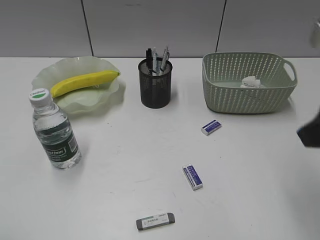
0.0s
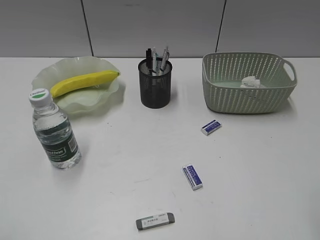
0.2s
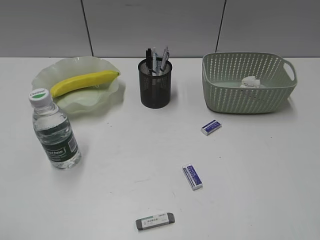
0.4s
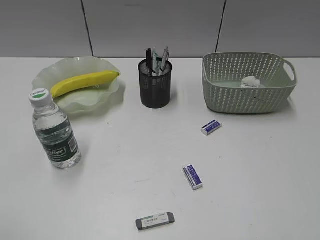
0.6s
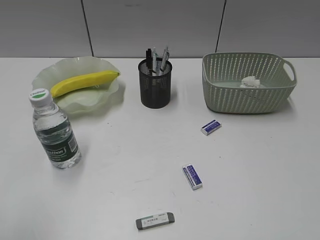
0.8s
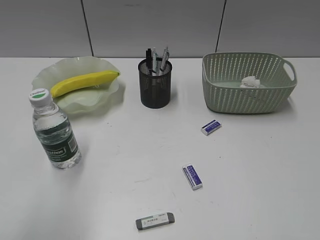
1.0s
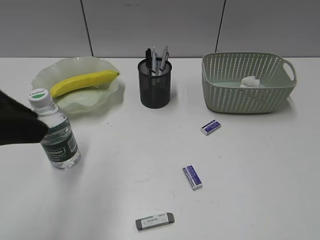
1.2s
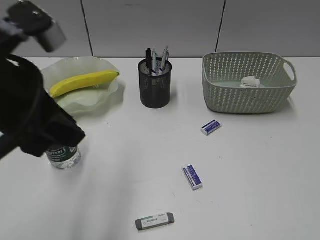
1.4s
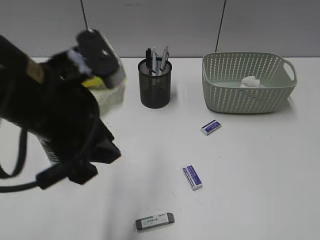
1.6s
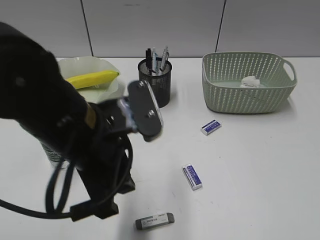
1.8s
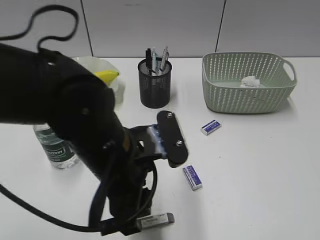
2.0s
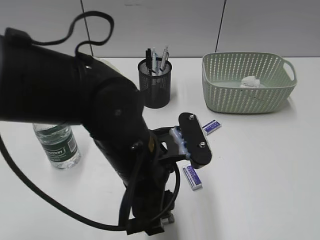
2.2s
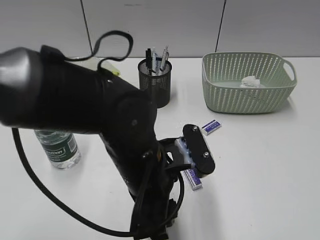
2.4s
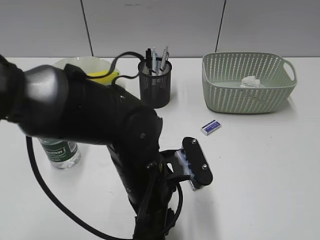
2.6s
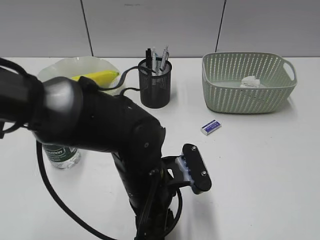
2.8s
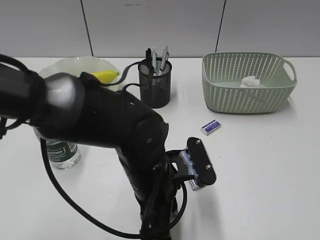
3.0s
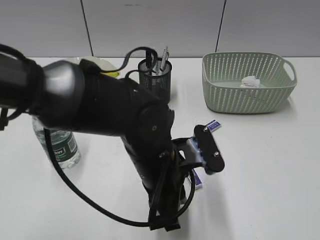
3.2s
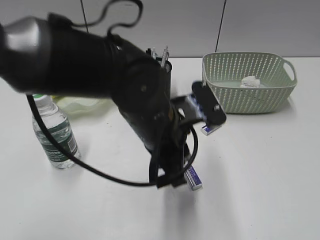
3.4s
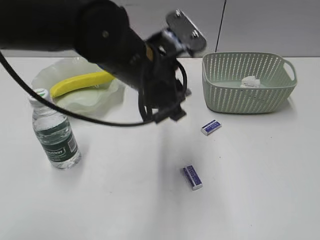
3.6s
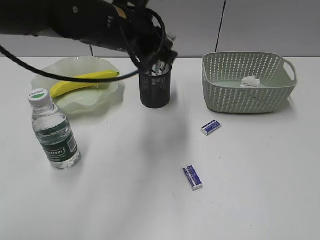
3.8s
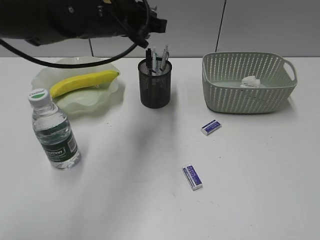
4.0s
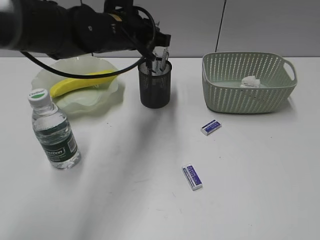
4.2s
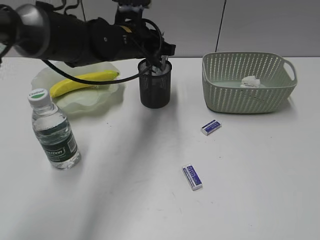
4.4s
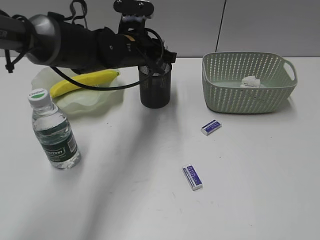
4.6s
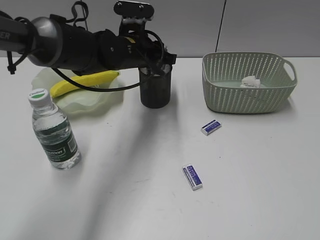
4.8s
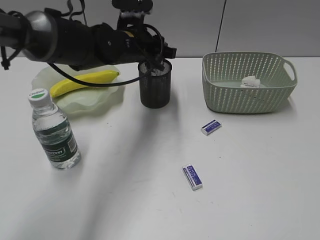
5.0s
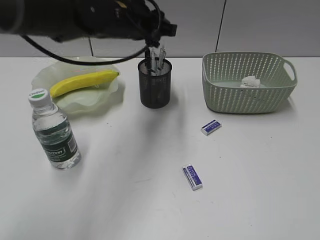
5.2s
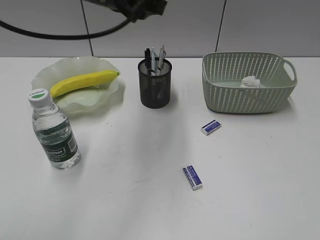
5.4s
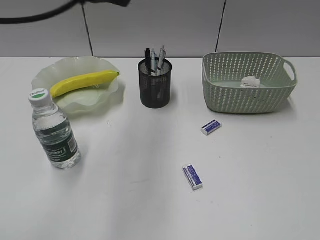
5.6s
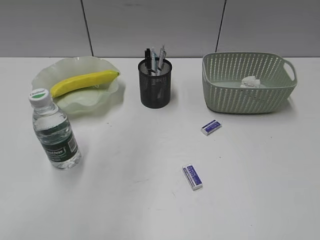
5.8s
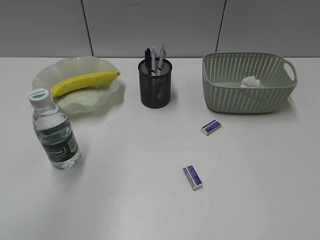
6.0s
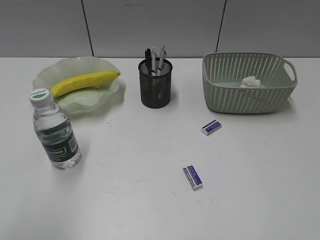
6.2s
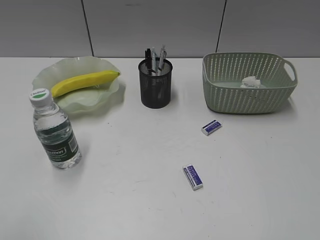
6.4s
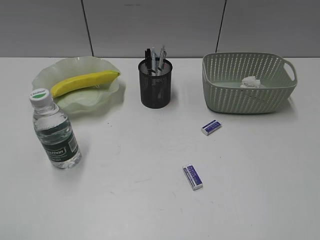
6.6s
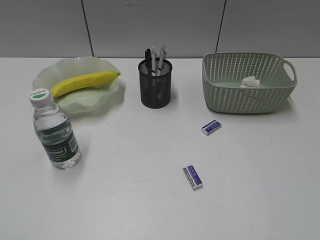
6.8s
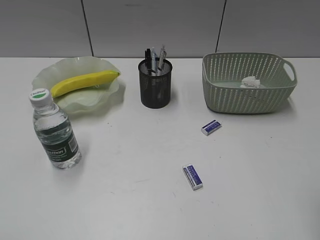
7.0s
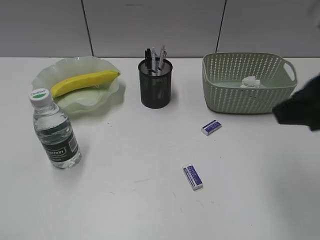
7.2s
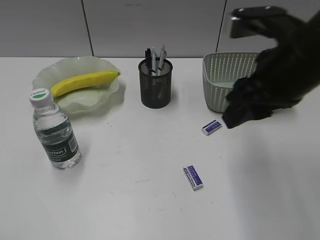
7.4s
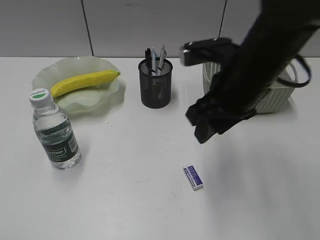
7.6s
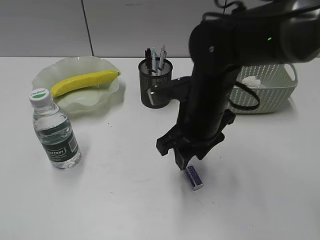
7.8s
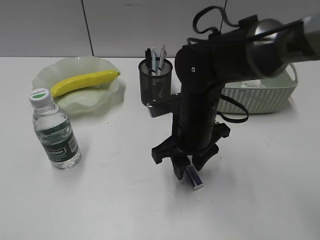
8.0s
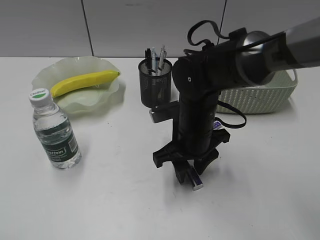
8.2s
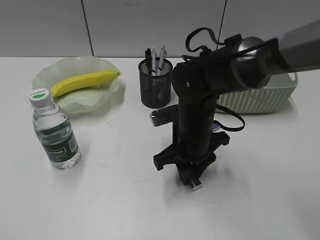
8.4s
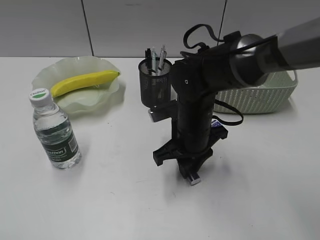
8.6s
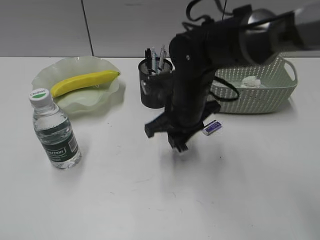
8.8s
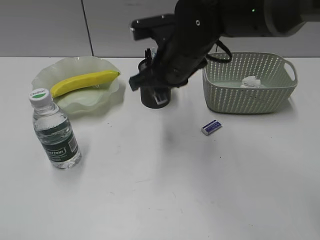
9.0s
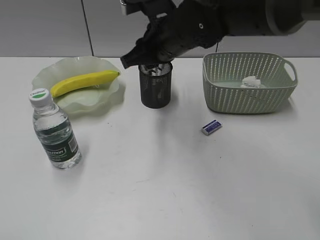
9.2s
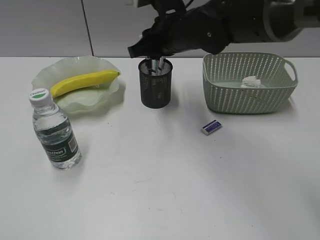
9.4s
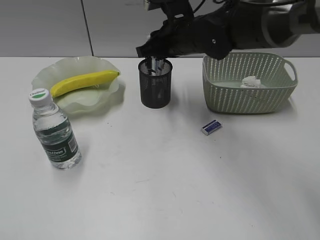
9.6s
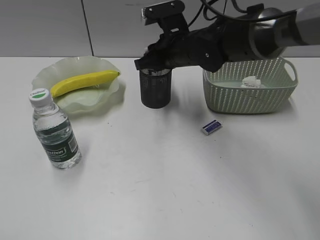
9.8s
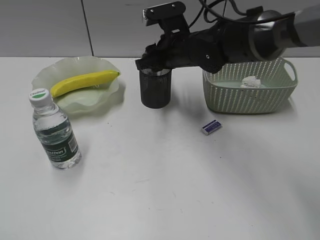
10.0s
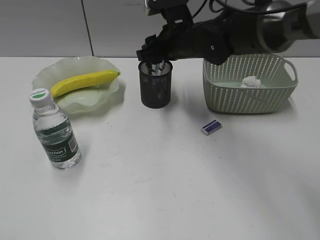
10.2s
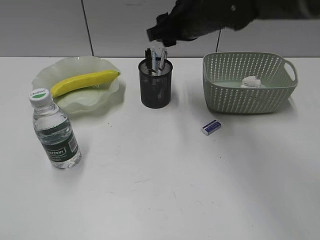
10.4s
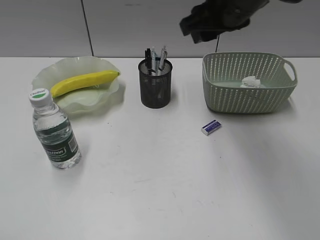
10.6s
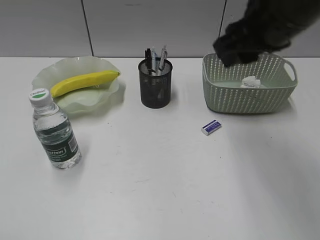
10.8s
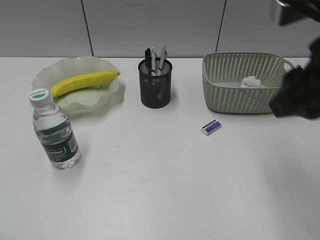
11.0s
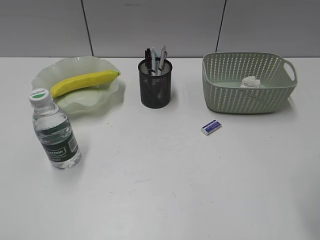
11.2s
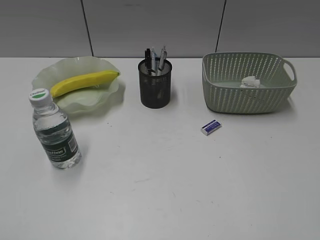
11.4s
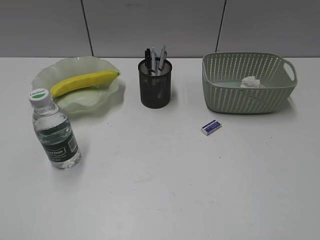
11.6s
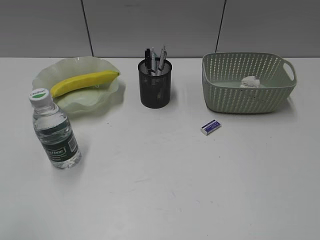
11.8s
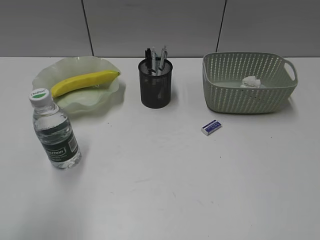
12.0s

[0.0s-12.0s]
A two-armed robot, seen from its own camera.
Step, 0.0s to 3.0s: Grasp the eraser with left gripper.
Step, 3.2s to 4.8s: Place the eraser in pen holder with left gripper.
Step, 5.0s to 8.4s: Grasp the eraser with right gripper.
Step, 8.6s to 10.0s: Place the eraser in pen holder with right gripper.
0.0s to 1.6s: The right gripper heads backward and to the right, covering roughly 20 cm. Meanwhile the left gripper shifts about 25 cm to the right and forward.
1.6s to 3.0s: The left gripper moves downward and to the right, approximately 20 cm.
3.0s to 4.4s: The left gripper is displaced forward and upward by about 20 cm.
4.4s to 6.0s: The left gripper goes approximately 35 cm backward, upward and to the left.
6.0s to 7.6s: The right gripper is displaced forward and to the left by roughly 30 cm, while the left gripper shifts approximately 25 cm backward, downward and to the left.
7.6s to 9.0s: The right gripper moves to the left and forward, some 10 cm, reaches roughly 15 cm downward, then returns, and closes up.
9.0s to 10.4s: The right gripper travels forward by some 5 cm, and opens its fingers.
10.4s to 12.0s: The left gripper is displaced forward and to the right by about 10 cm. Meanwhile the right gripper heads backward and to the right, covering some 50 cm.

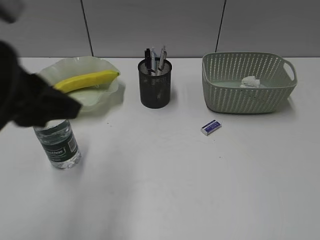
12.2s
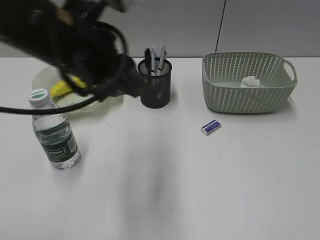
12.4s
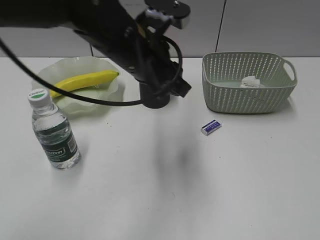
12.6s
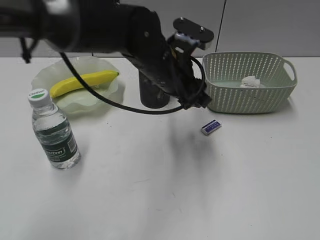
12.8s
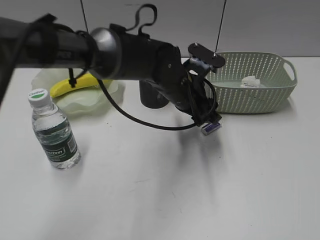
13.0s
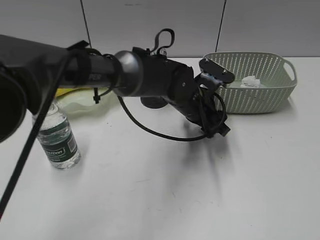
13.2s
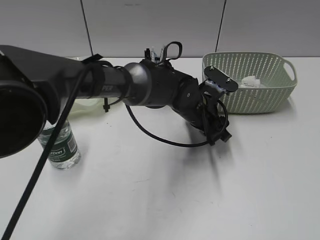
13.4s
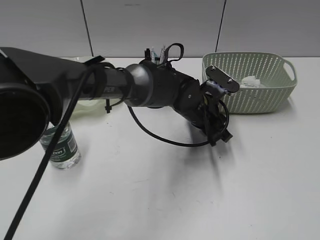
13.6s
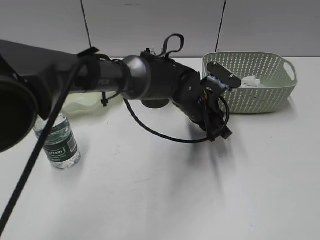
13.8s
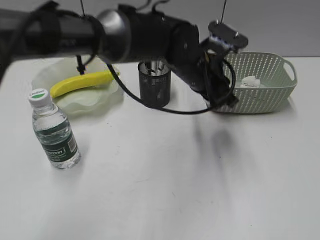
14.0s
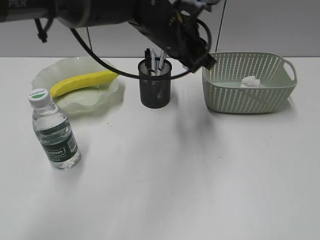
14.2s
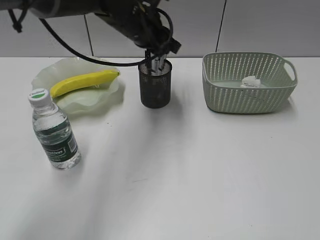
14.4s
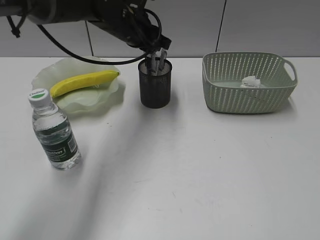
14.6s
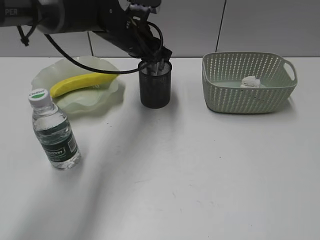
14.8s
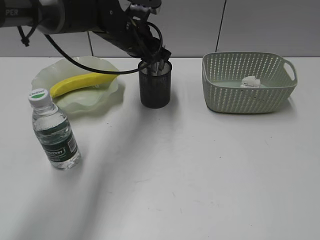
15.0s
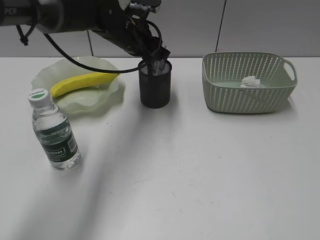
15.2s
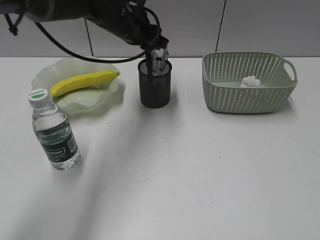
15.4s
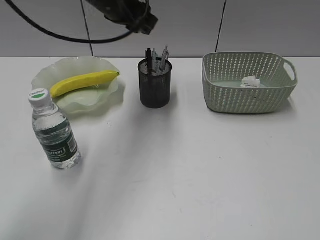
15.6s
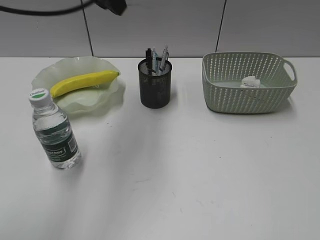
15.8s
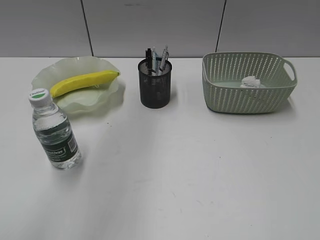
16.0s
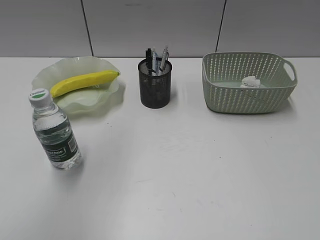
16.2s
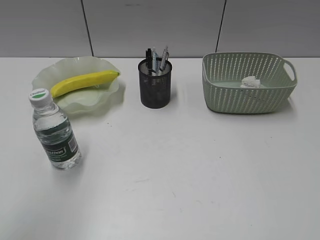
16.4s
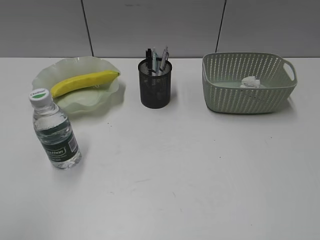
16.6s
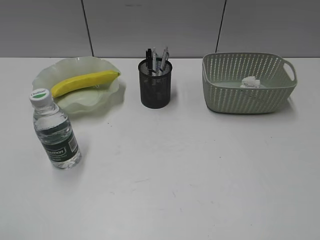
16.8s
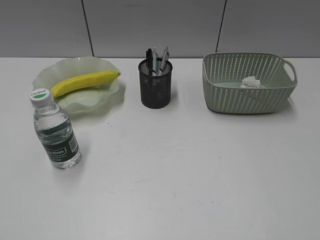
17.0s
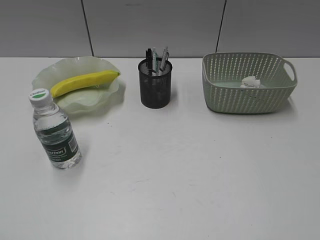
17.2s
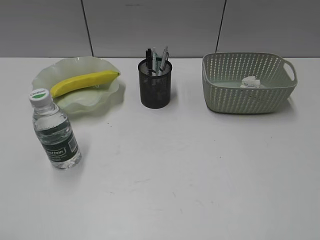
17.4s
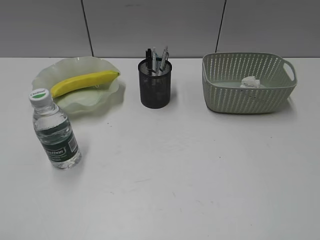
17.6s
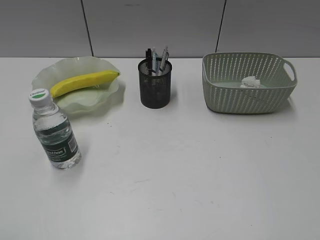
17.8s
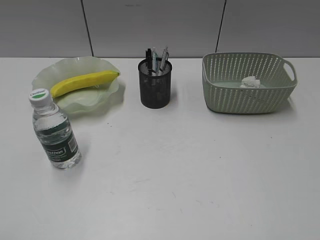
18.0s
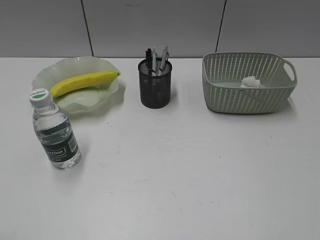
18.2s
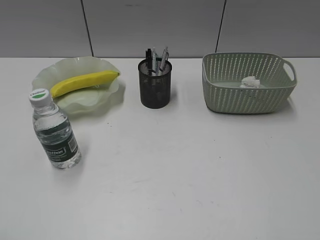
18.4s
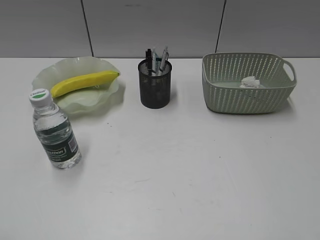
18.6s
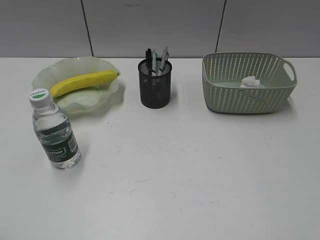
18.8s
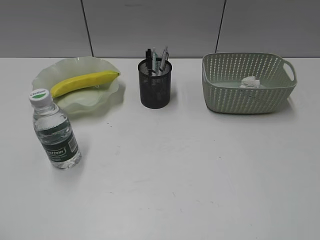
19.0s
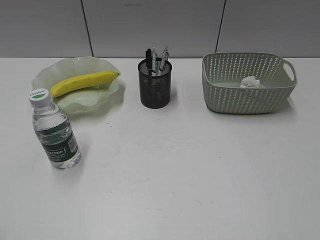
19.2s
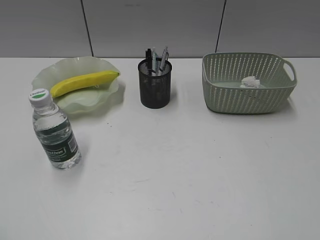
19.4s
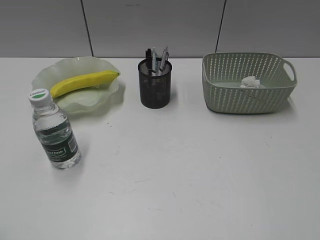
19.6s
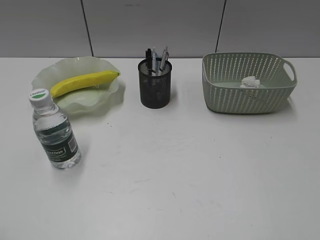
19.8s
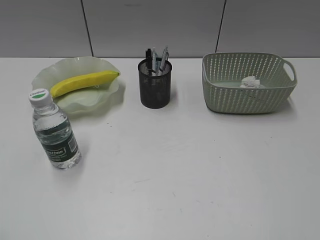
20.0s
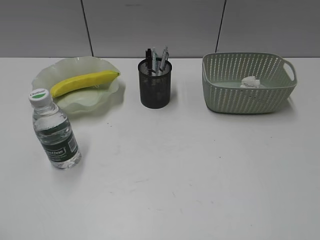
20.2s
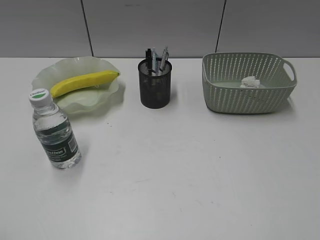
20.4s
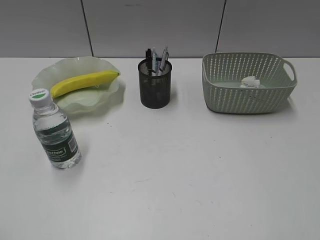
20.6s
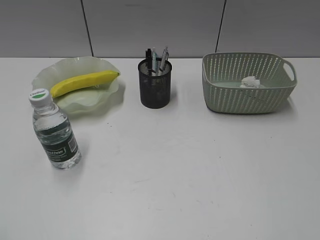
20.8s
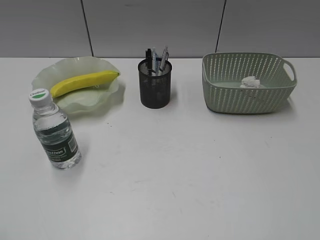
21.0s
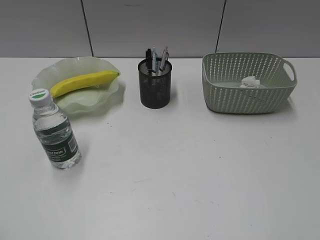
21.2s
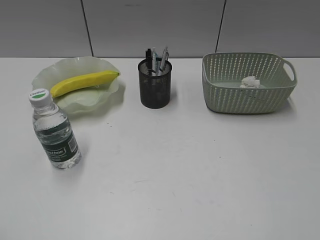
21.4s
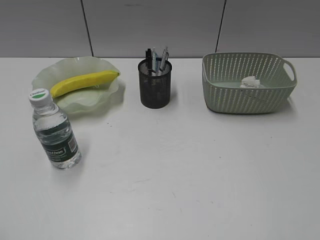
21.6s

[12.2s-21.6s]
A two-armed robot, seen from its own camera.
Step, 13.8s to 15.2s: Place the eraser in pen holder with left gripper.
12.2s to 13.8s: The left gripper travels to the right, downward and forward by roughly 35 cm, and opens, then closes once more.
13.8s to 15.4s: The left gripper is displaced to the left, upward and forward by some 20 cm.
15.4s to 17.0s: The left gripper travels backward and to the left by some 50 cm.
20.0s to 21.6s: The two grippers keep their place.

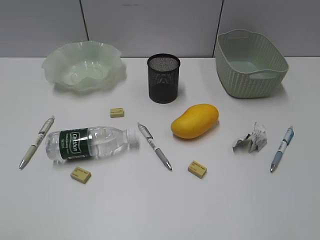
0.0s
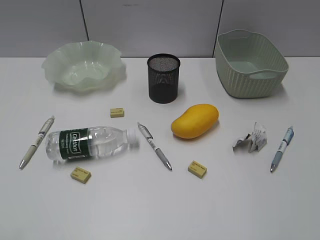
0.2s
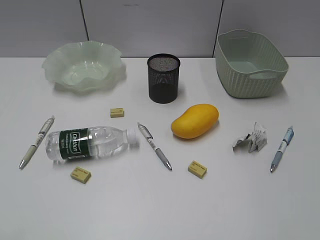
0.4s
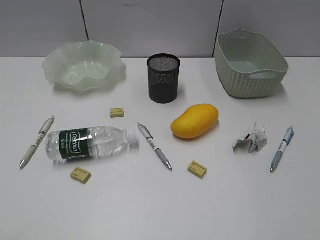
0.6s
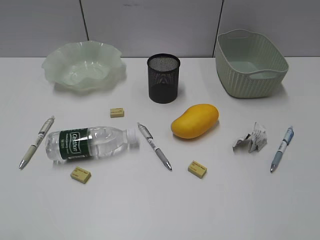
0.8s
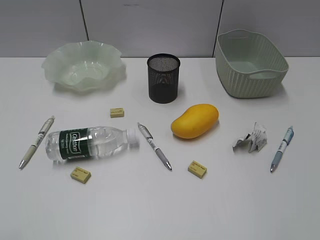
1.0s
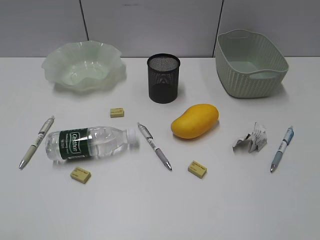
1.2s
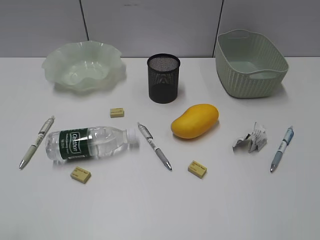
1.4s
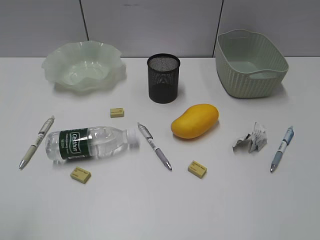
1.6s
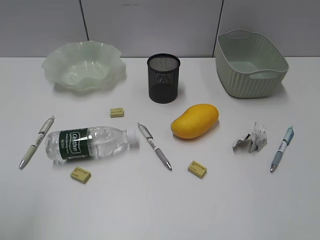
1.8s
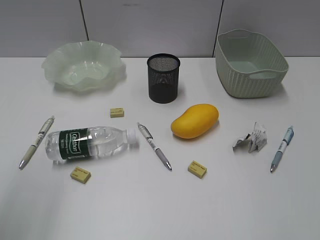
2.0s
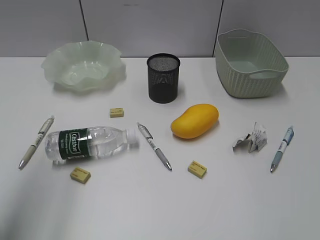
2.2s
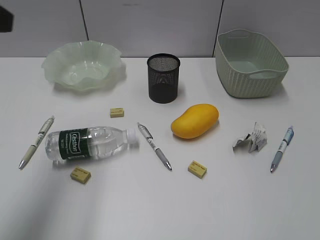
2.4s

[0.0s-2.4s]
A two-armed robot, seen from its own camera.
1.2s to 2.4s: The left gripper heads forward and upward, covering approximately 25 cm.
